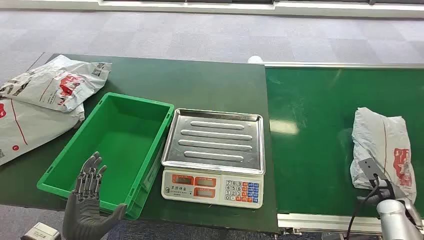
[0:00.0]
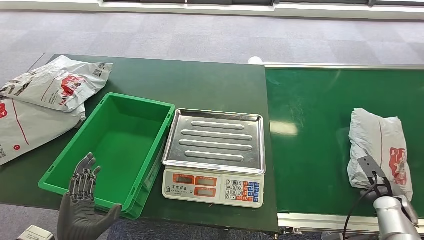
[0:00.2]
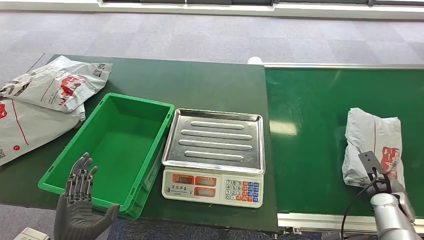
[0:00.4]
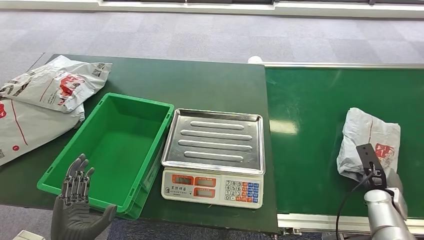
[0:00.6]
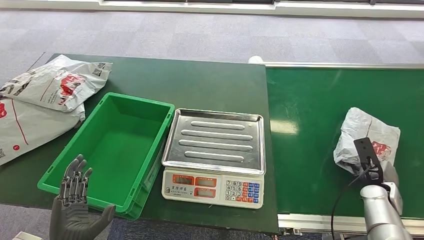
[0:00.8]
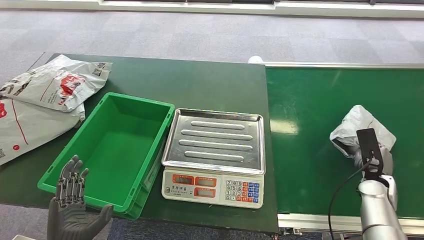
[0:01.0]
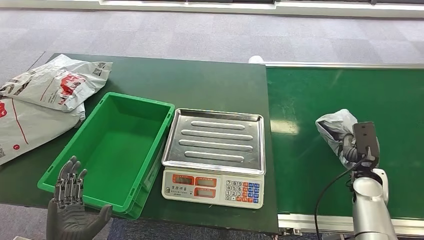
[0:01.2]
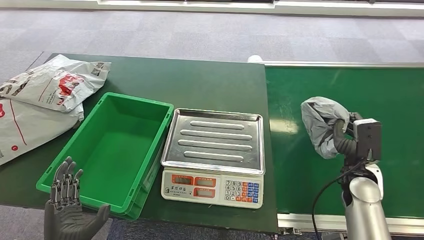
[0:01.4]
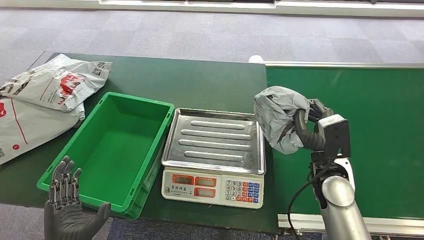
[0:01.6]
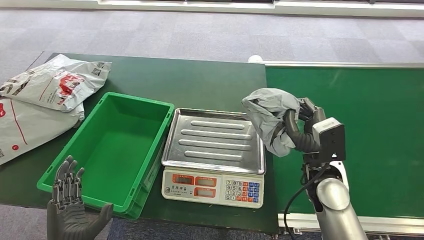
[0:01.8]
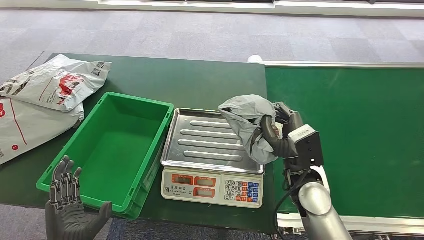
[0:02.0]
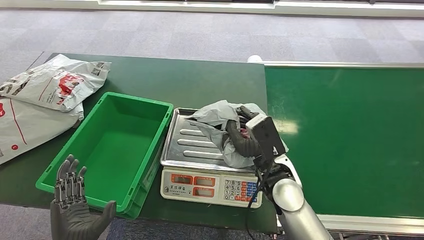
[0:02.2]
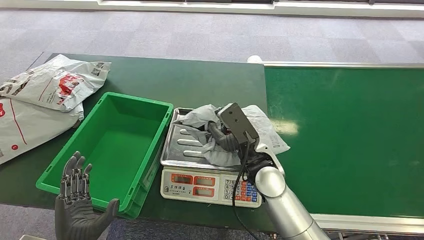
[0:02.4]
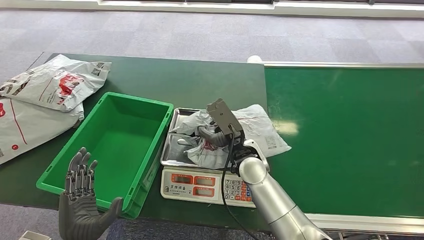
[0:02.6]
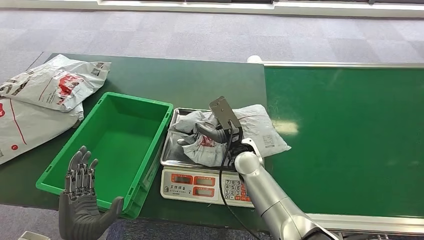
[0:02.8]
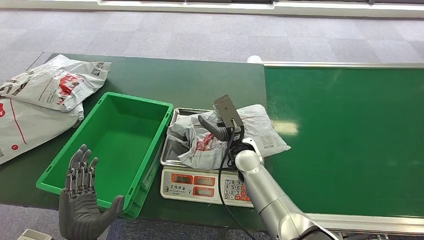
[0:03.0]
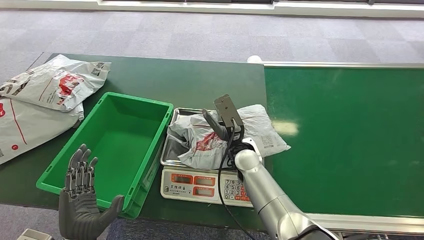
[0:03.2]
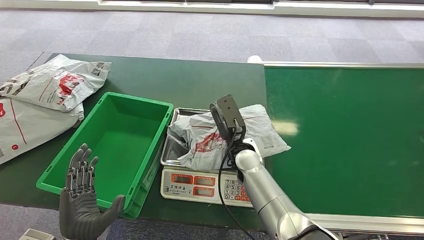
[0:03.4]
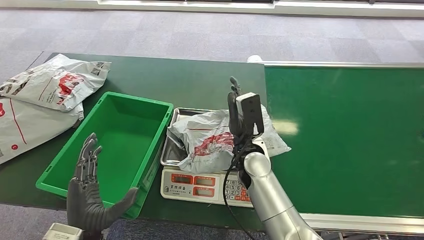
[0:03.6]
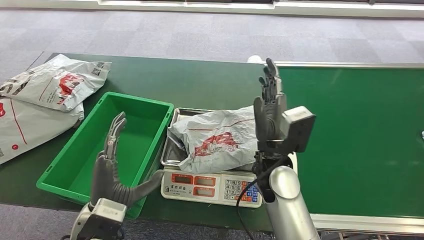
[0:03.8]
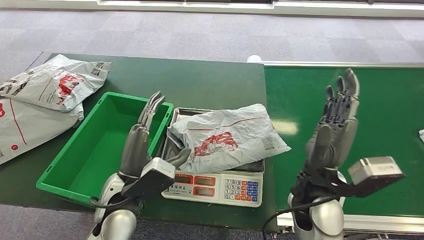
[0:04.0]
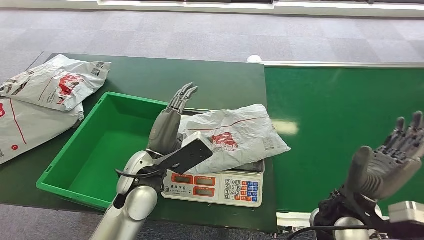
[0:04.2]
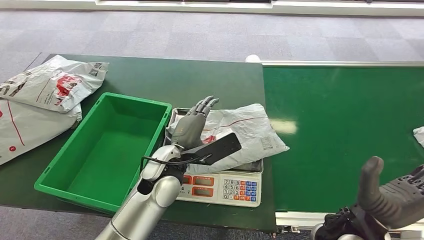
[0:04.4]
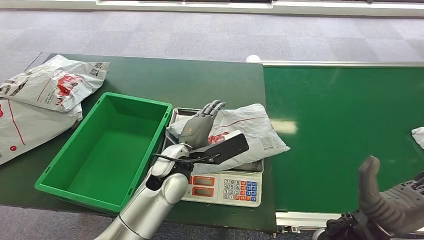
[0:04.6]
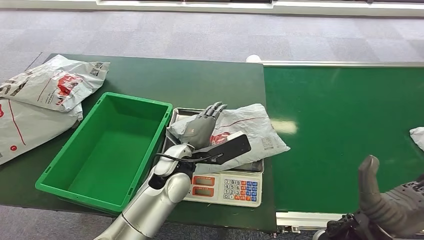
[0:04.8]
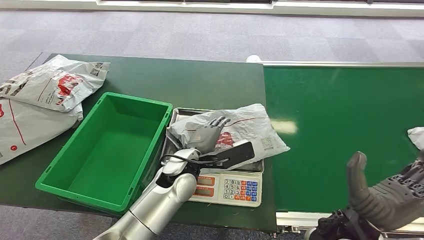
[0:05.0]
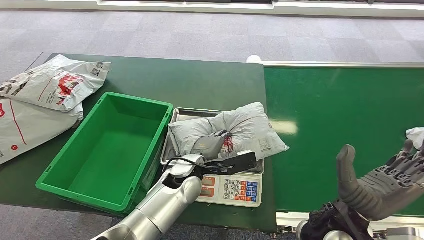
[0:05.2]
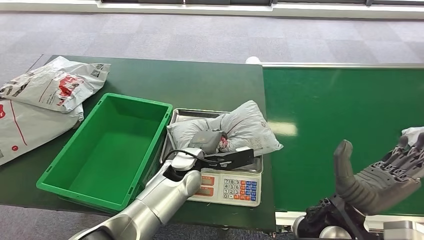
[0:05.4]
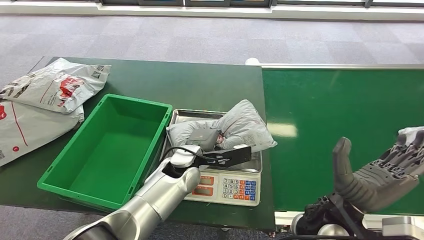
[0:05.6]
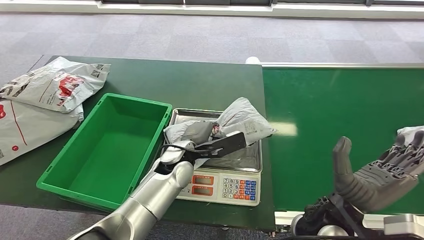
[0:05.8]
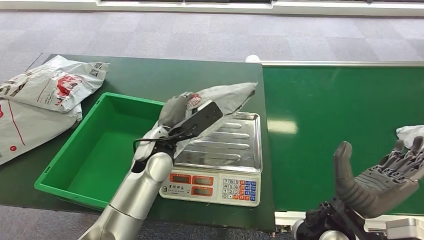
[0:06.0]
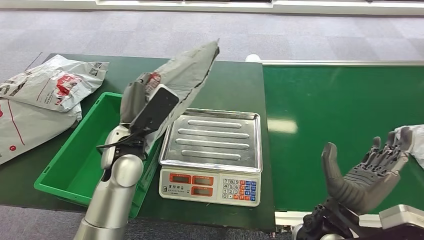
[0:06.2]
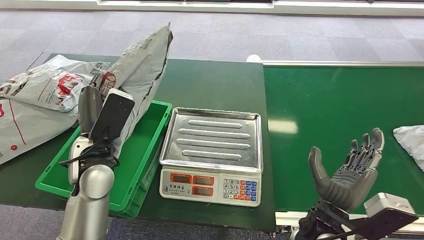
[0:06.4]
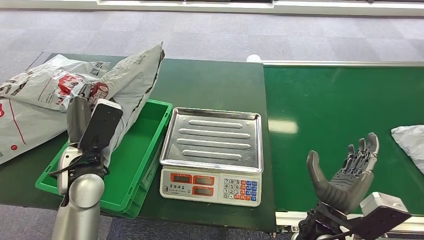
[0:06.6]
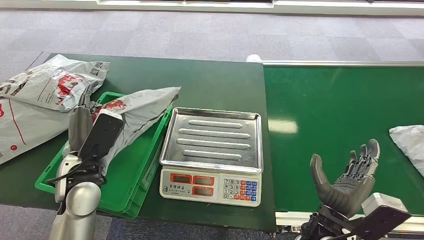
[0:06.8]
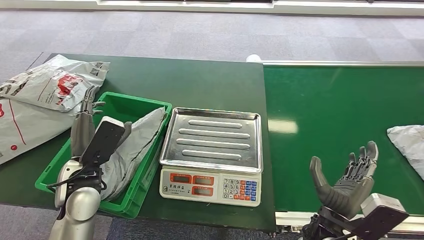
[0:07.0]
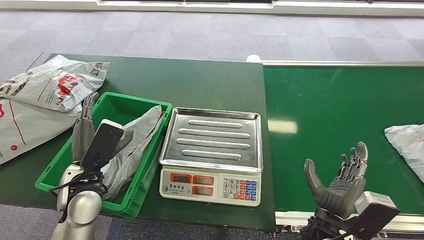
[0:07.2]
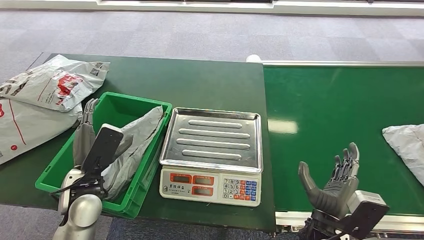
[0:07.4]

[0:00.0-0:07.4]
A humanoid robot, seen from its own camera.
Task of the whole recording: Weigh the package on the weighing device and place it in the left basket.
Step, 0:00.0 to 0:01.4: Pick up the package from the conveyor belt.
Step, 0:01.6 to 0:03.8: Place the package onto the inbound machine.
Step, 0:05.2 to 0:06.0: Pick up the package from the inbound machine.
Step, 0:06.4 to 0:07.4: Place the package into the parcel locker.
